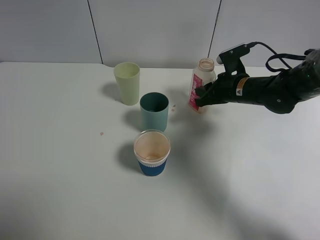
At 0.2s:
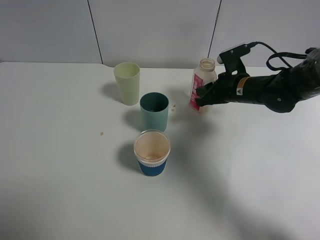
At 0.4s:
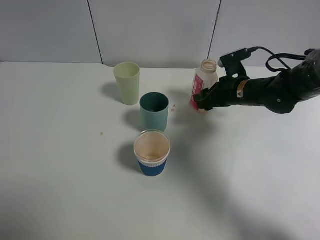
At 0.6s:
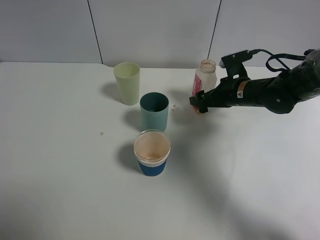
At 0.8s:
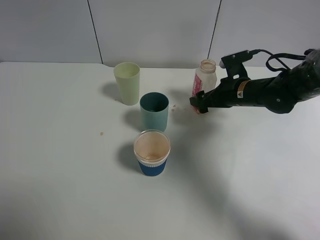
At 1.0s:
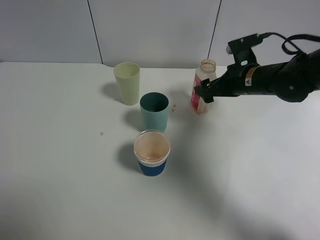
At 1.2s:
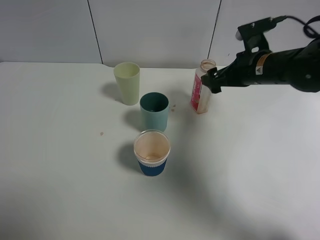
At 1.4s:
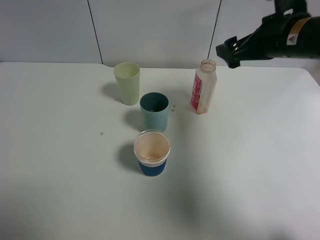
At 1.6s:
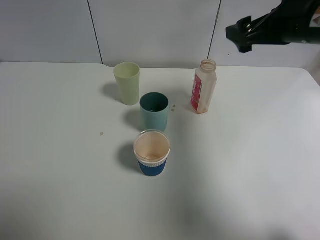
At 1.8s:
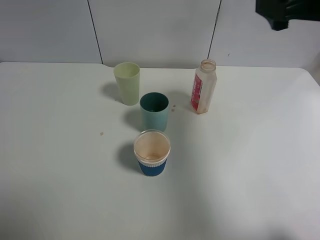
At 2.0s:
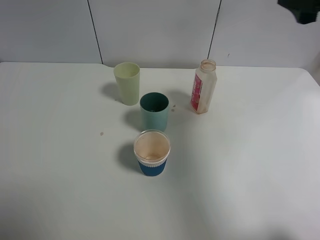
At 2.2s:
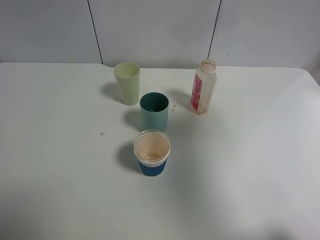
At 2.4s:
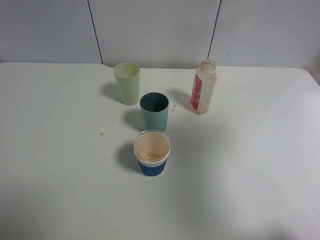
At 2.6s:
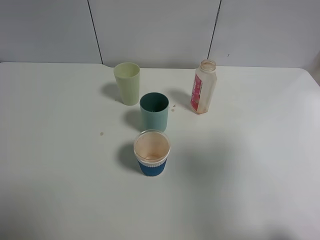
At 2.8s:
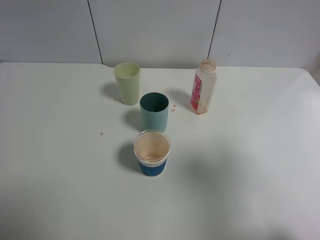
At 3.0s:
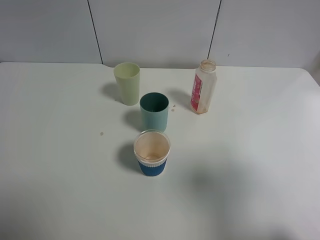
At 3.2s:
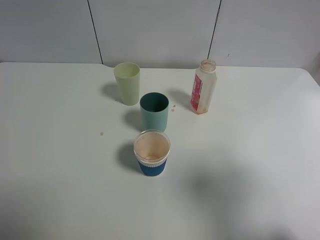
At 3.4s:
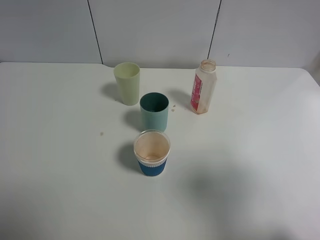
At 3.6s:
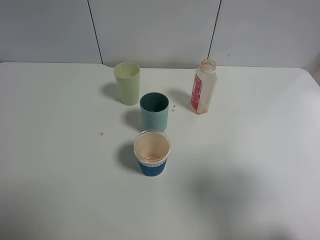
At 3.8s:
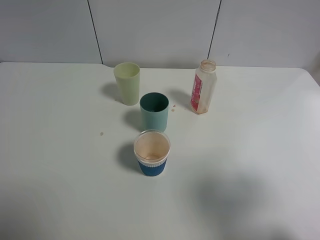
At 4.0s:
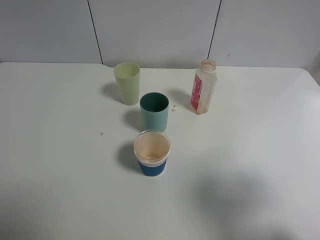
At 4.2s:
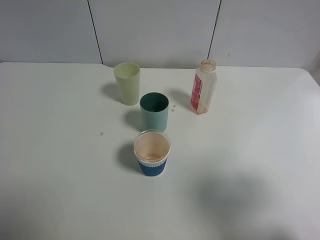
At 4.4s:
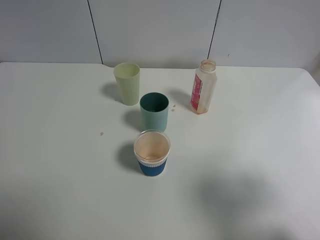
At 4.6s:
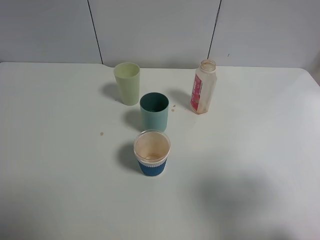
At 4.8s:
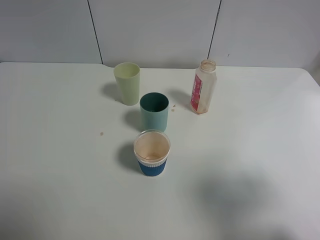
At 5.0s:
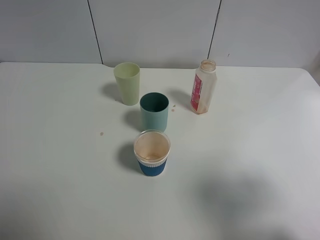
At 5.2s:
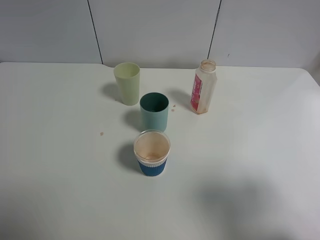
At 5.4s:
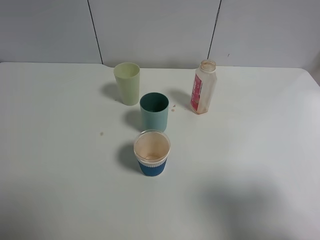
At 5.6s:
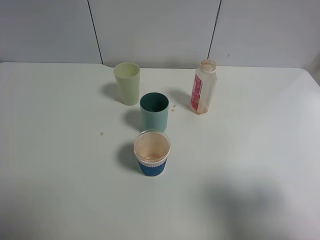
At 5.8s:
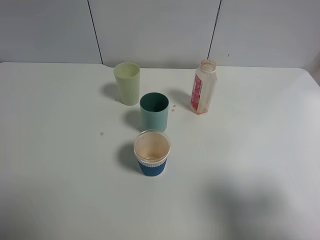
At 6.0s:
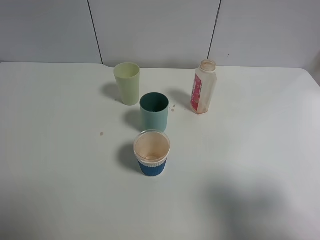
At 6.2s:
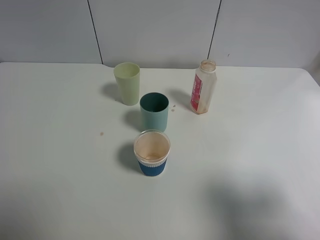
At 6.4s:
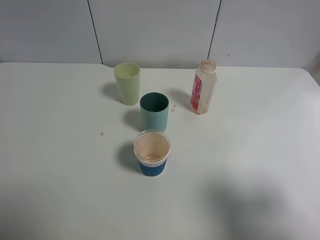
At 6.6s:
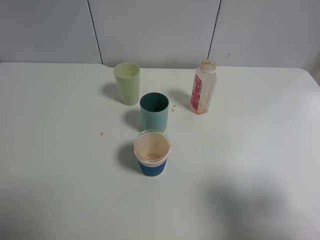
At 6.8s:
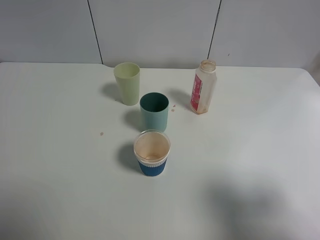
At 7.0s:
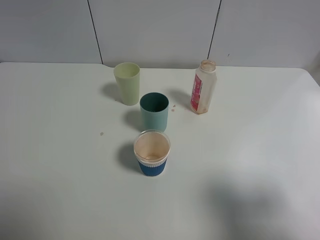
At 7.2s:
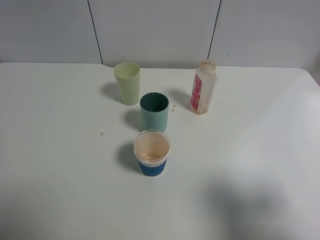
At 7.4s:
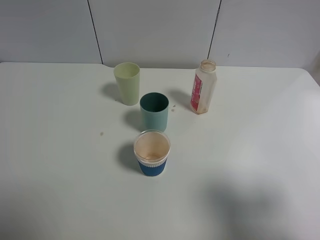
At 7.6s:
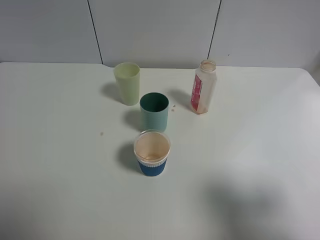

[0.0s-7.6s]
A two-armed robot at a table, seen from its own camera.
Task of the whole recording: use a gripper to hold the bottle of the drink and pour it into a random cup.
0.0s to 1.6s: The right gripper goes about 20 cm upward, and opens up.
1.6s to 3.0s: The right gripper shifts roughly 25 cm backward.
6.0s to 7.6s: The two grippers keep their place.

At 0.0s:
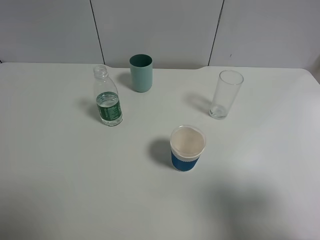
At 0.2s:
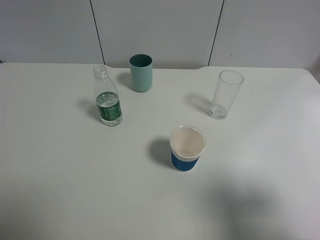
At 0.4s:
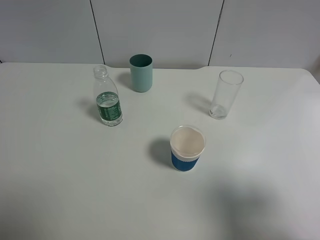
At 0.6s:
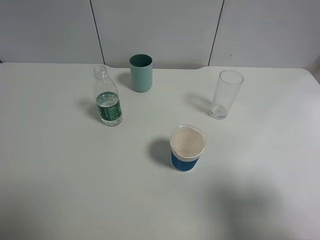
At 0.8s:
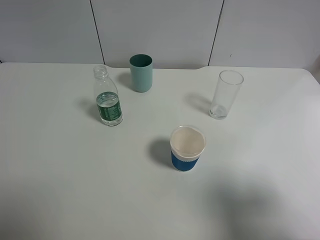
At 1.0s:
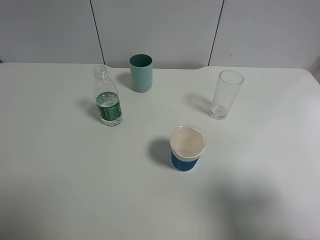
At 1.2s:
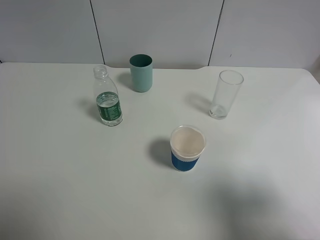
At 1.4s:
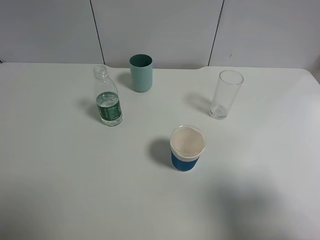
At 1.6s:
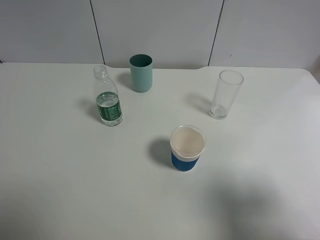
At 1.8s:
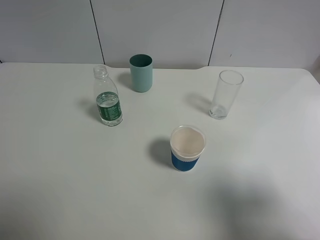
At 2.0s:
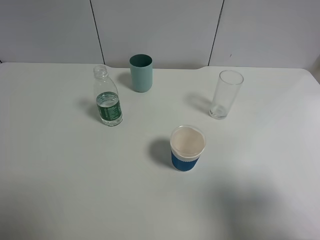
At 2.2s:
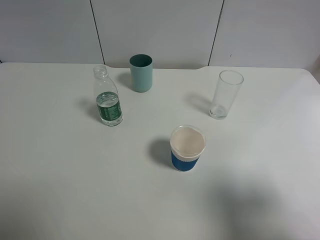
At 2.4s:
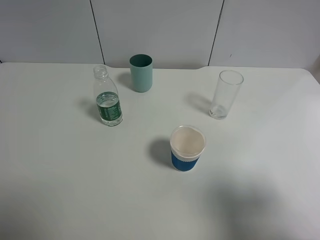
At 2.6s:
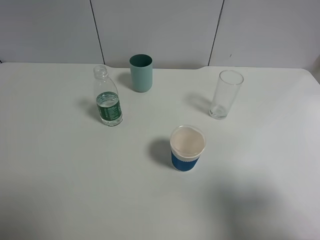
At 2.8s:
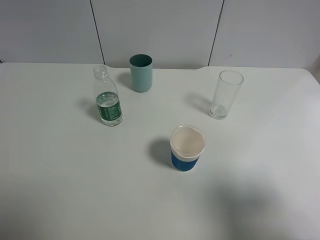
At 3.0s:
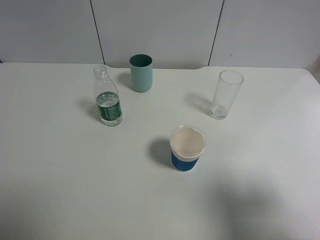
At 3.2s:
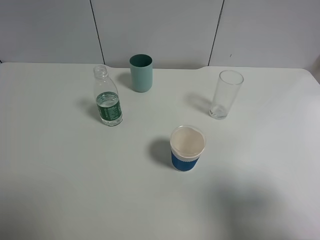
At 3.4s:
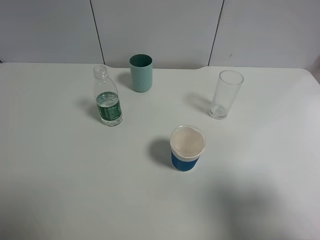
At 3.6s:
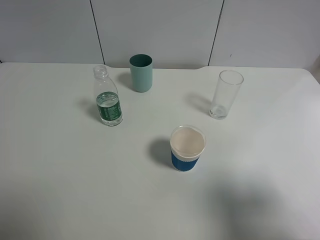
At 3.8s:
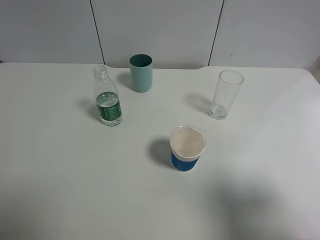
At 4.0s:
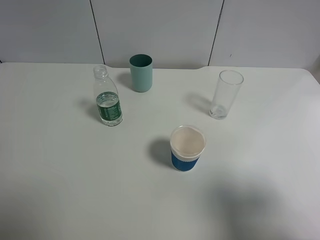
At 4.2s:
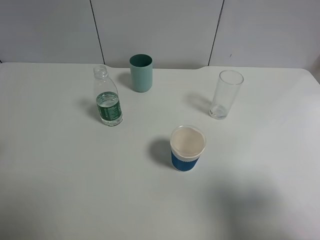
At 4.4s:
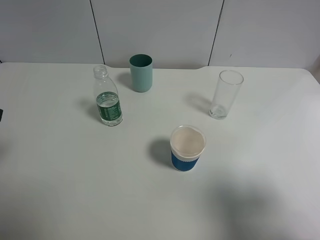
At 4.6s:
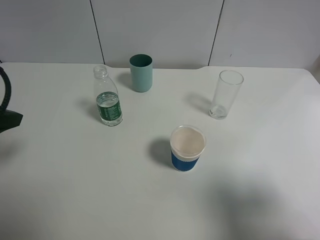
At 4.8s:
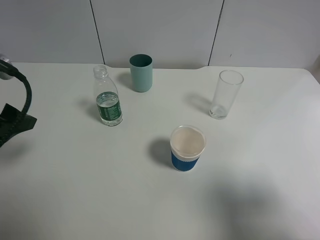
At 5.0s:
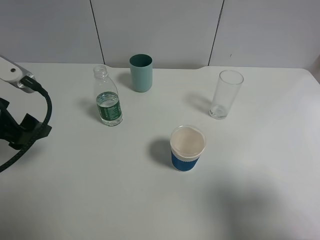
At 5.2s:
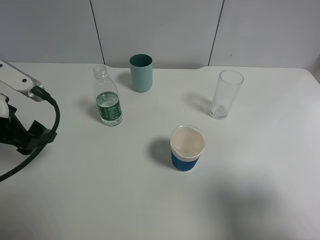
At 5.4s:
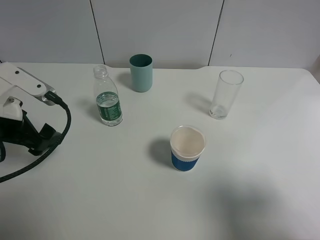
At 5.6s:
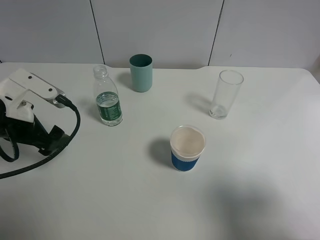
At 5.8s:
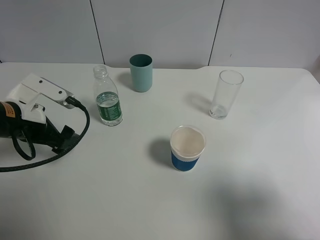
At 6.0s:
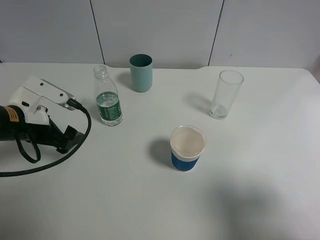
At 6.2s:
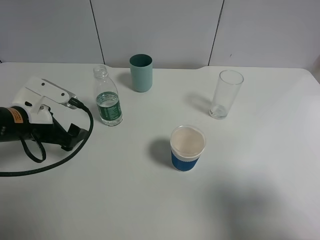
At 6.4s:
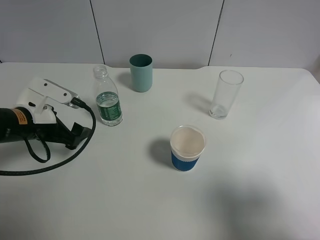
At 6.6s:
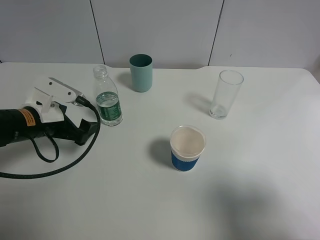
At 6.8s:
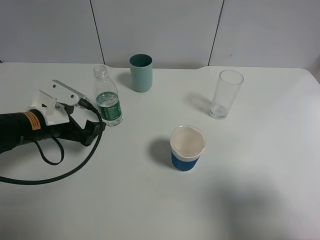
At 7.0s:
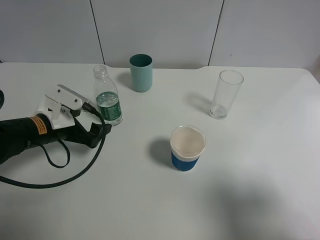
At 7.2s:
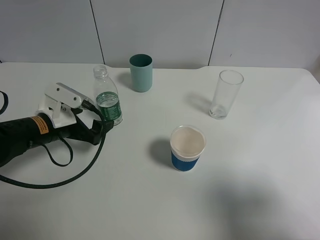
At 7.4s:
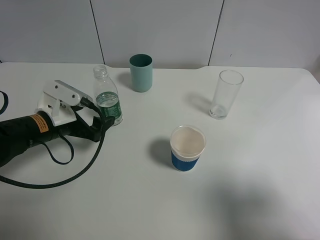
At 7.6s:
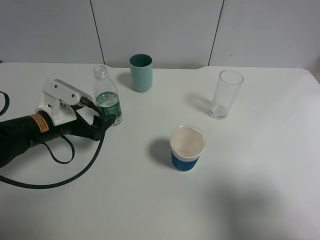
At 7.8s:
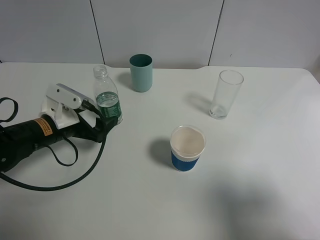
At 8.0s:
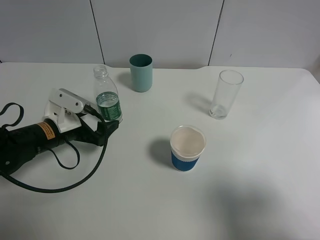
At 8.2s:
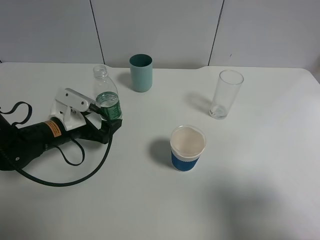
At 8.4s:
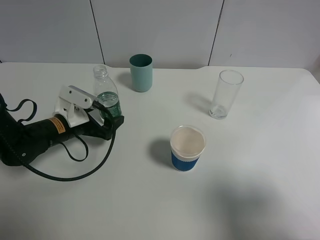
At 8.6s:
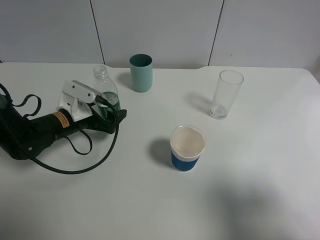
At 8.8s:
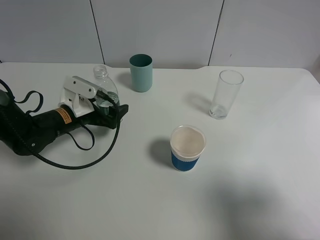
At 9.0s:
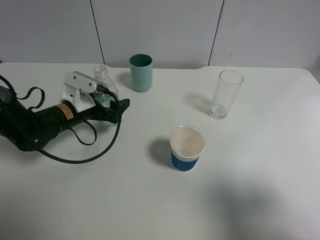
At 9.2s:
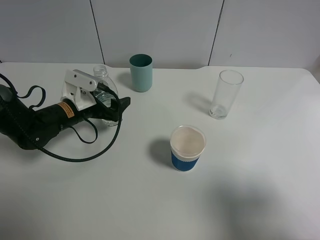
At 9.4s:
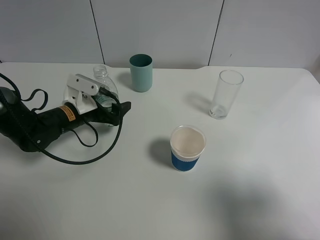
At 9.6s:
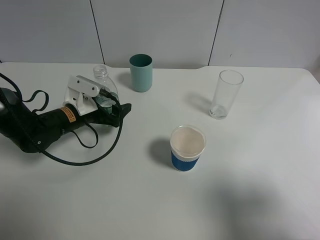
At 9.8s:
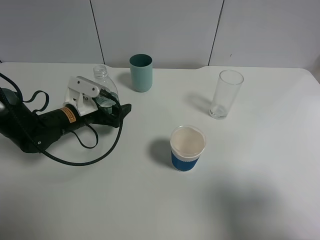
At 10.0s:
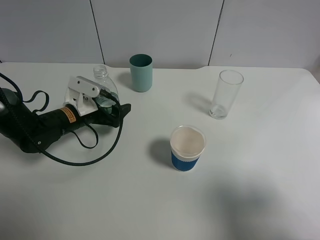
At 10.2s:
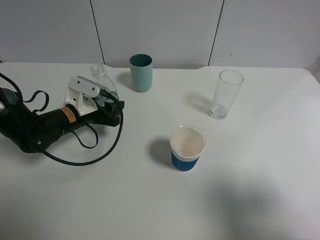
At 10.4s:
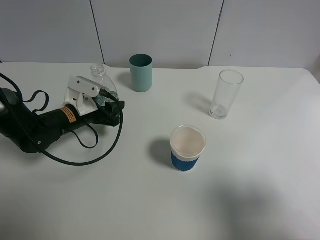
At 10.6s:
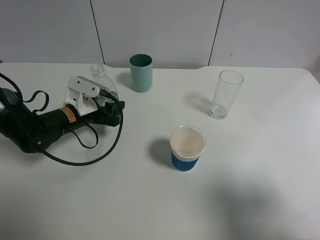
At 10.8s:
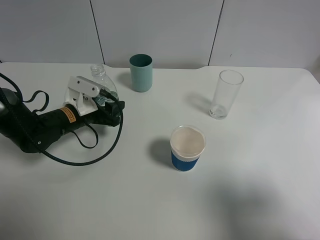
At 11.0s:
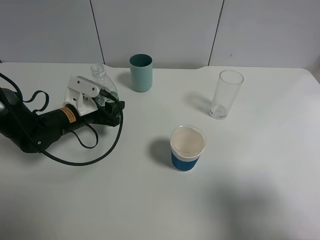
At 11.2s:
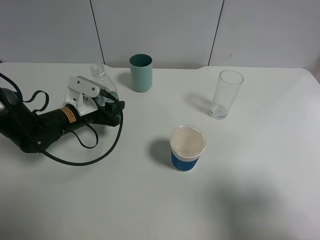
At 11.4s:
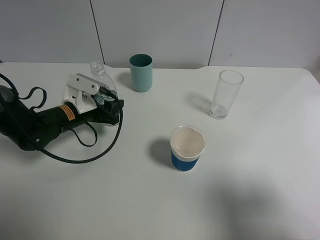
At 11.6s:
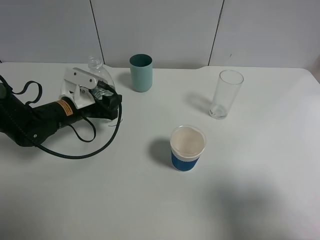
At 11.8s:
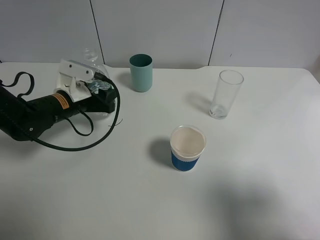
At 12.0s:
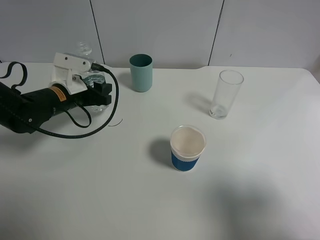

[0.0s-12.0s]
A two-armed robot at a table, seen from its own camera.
Task of the whole recording: use a gripper to hold the bottle of the drink and pour it into a random cup.
Step, 0.0s to 11.0s: Grasp the mineral water bottle with the left gripper.
0.0s to 3.0s: Both grippers stay about where they are.
4.4s to 6.0s: The left gripper is displaced downward, forward and to the right by approximately 15 cm.
6.0s to 7.6s: The left gripper moves some 5 cm.
7.6s to 9.0s: The left gripper goes some 5 cm forward.
9.0s to 10.4s: The left gripper closes.
10.4s to 12.0s: The left gripper travels upward by roughly 5 cm.

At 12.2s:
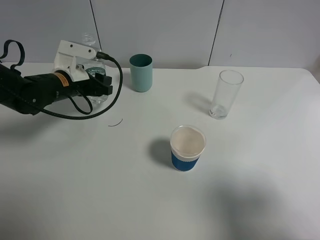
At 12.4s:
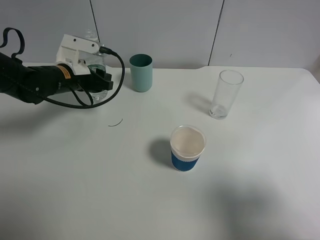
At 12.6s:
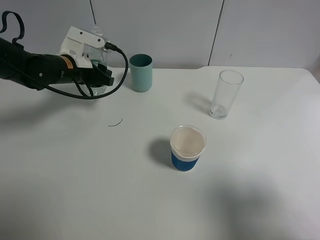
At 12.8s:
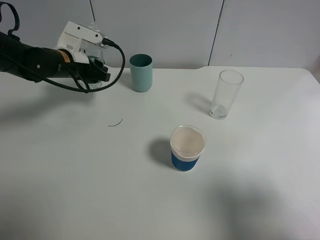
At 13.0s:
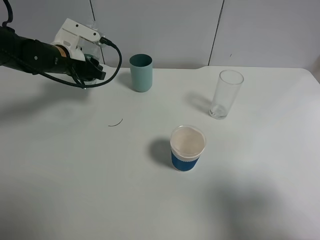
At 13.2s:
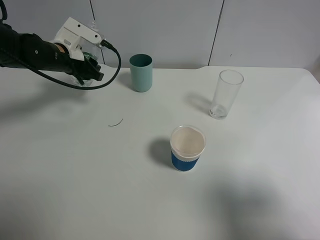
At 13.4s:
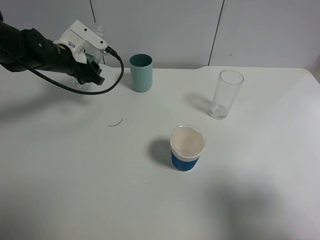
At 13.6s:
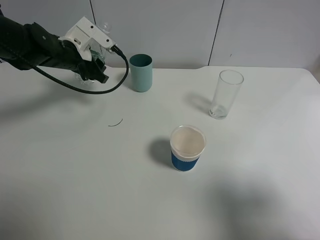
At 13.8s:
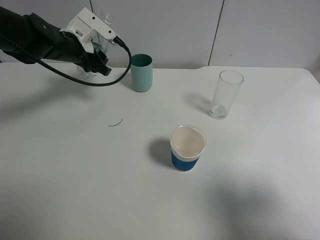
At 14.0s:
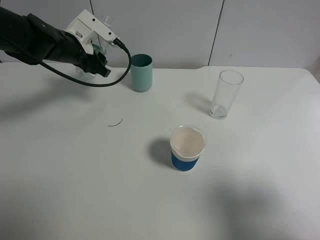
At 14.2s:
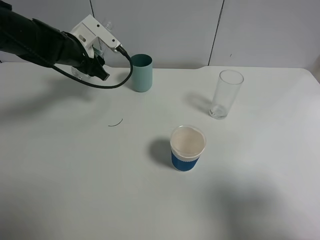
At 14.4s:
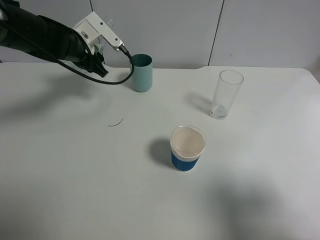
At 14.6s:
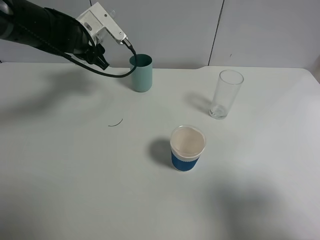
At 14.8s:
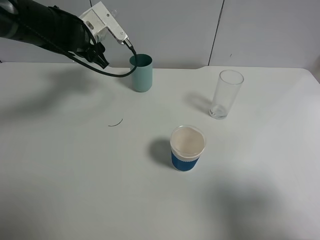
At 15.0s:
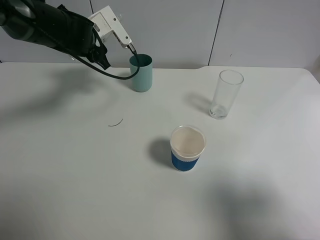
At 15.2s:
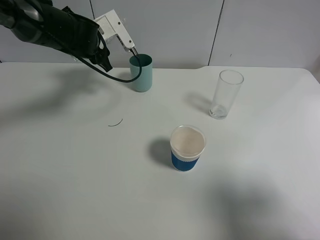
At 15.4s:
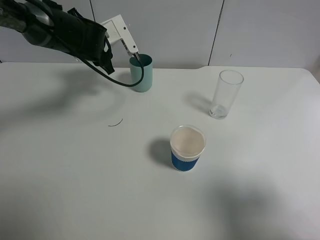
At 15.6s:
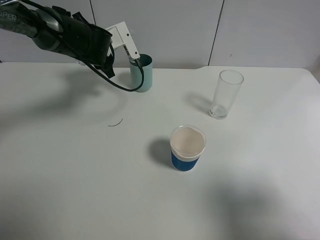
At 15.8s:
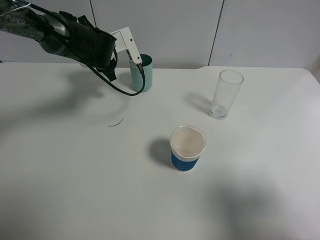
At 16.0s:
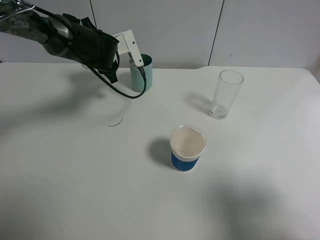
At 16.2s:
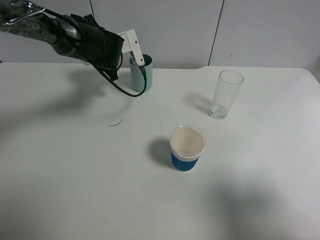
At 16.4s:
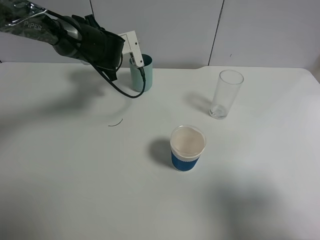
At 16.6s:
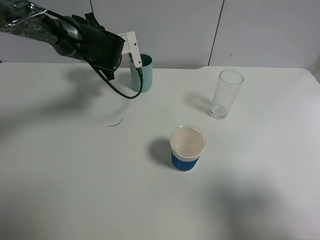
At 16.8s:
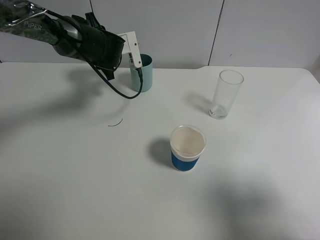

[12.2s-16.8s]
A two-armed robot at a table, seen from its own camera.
Task of the whole recording: use a gripper to hold the bottle of the drink and pour it into a random cup.
12.2s to 13.8s: The left gripper goes about 10 cm forward and upward.
